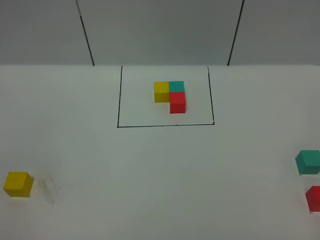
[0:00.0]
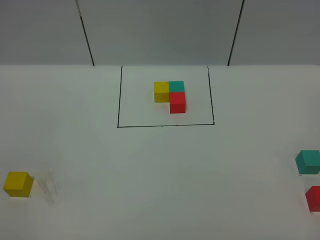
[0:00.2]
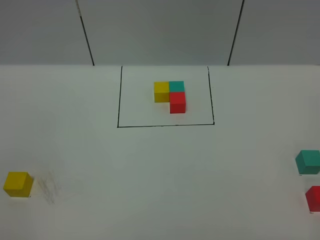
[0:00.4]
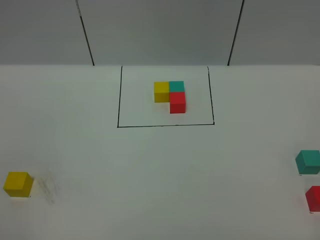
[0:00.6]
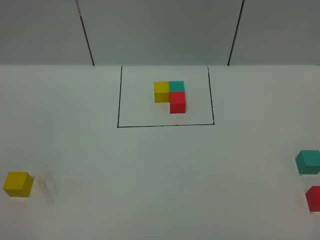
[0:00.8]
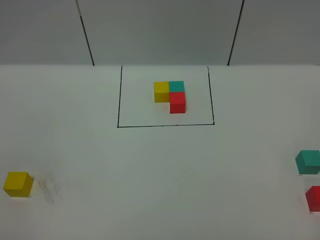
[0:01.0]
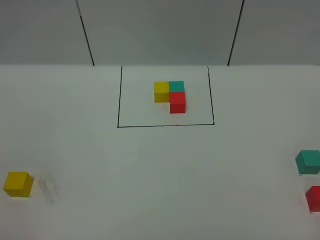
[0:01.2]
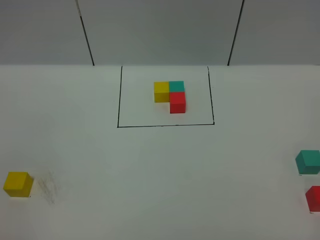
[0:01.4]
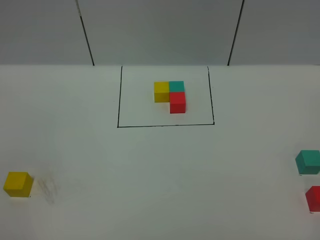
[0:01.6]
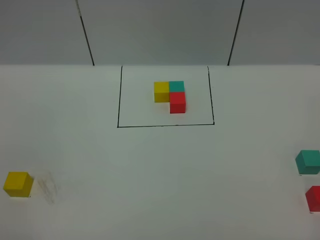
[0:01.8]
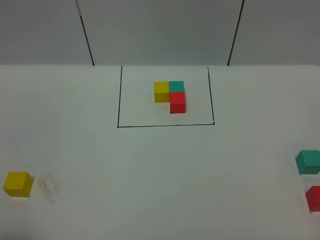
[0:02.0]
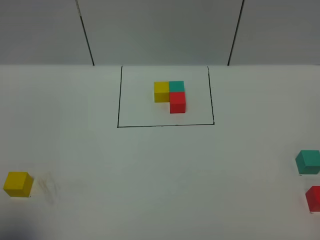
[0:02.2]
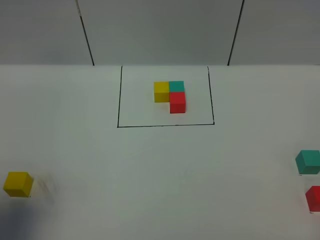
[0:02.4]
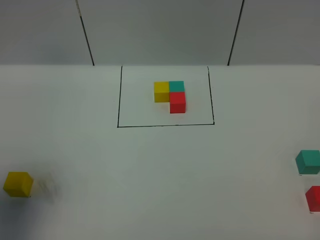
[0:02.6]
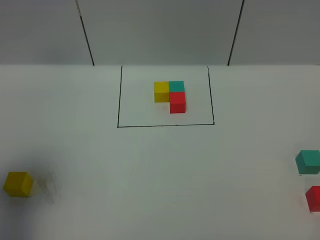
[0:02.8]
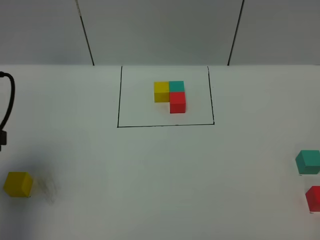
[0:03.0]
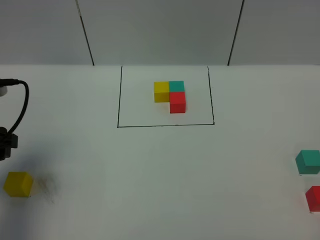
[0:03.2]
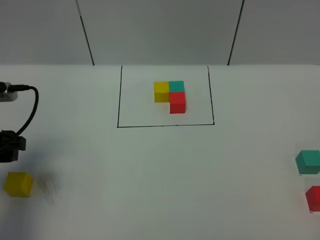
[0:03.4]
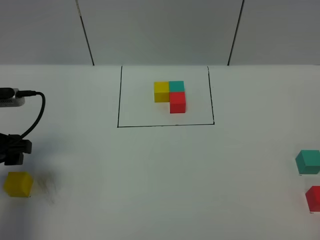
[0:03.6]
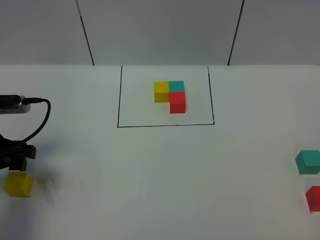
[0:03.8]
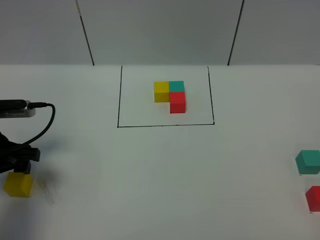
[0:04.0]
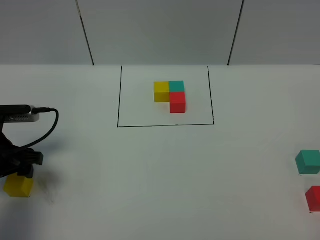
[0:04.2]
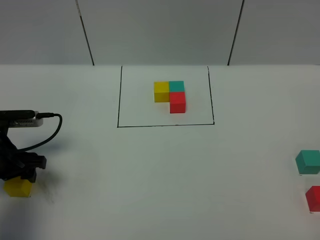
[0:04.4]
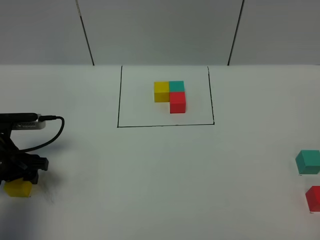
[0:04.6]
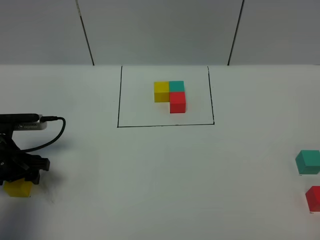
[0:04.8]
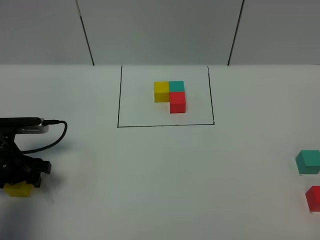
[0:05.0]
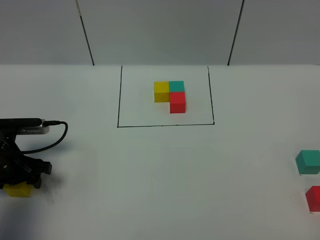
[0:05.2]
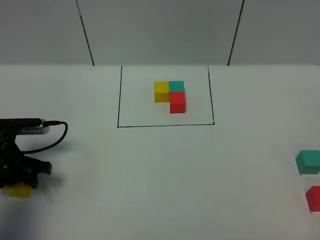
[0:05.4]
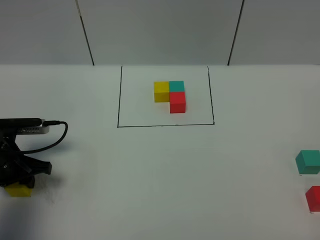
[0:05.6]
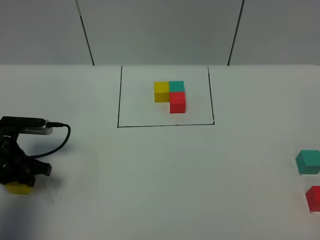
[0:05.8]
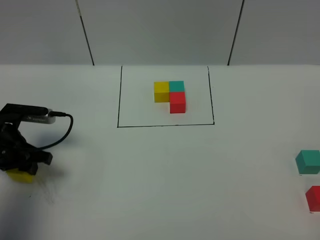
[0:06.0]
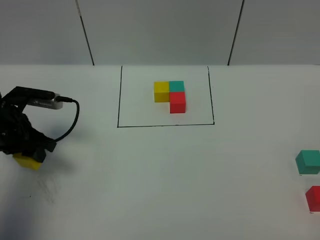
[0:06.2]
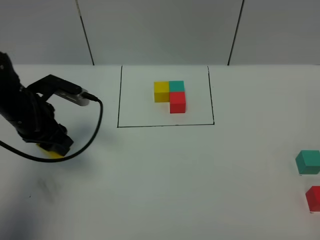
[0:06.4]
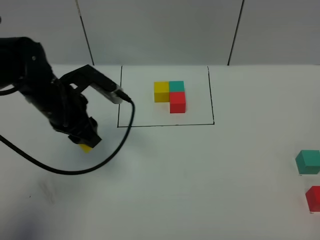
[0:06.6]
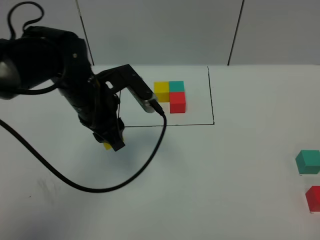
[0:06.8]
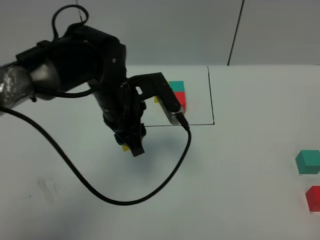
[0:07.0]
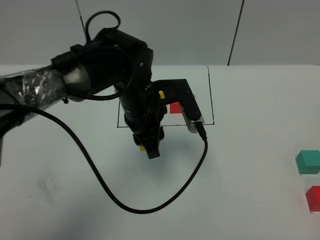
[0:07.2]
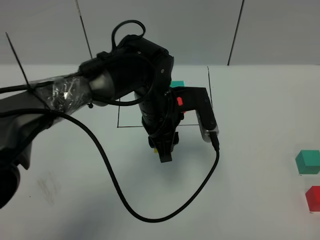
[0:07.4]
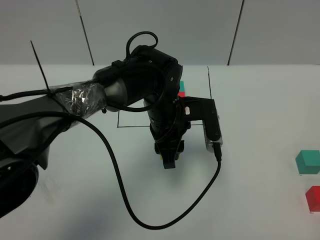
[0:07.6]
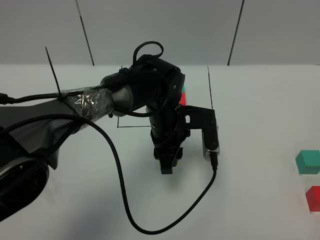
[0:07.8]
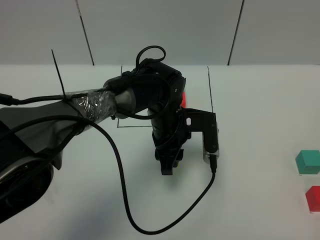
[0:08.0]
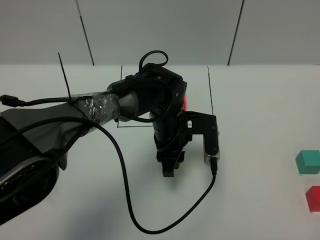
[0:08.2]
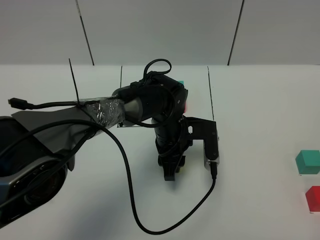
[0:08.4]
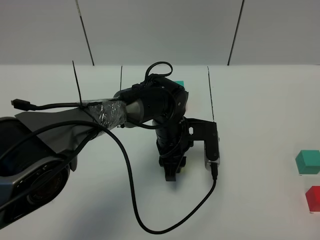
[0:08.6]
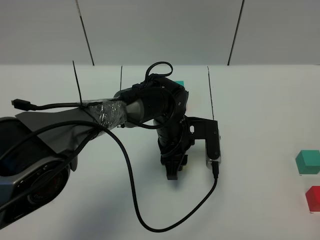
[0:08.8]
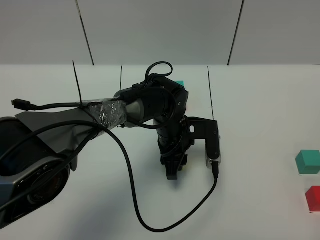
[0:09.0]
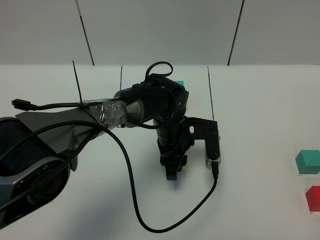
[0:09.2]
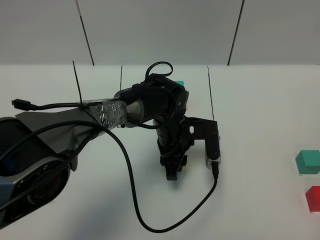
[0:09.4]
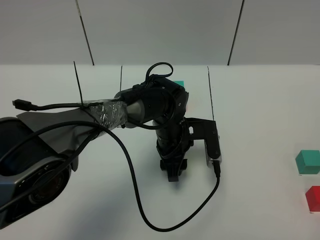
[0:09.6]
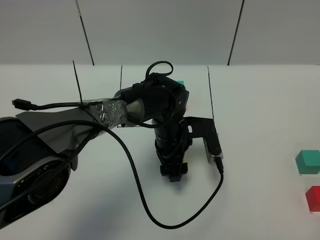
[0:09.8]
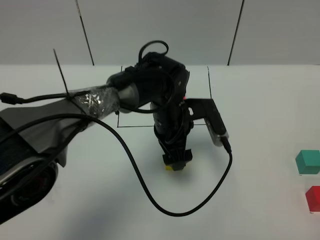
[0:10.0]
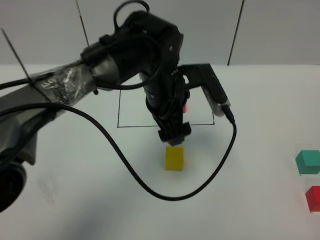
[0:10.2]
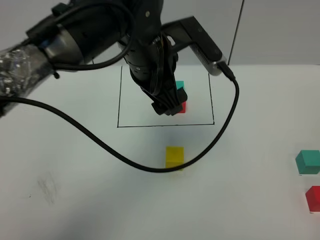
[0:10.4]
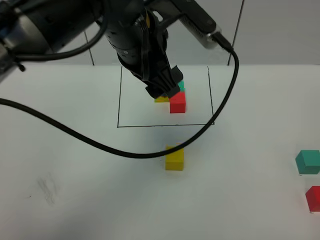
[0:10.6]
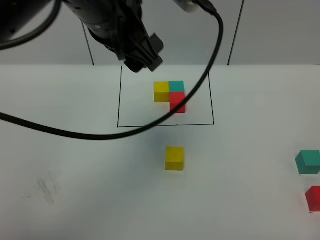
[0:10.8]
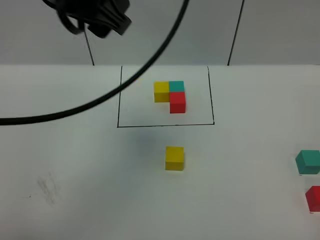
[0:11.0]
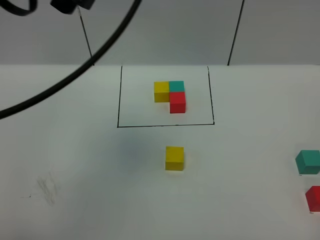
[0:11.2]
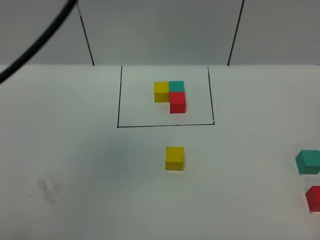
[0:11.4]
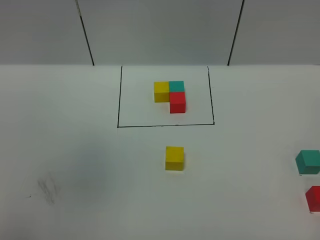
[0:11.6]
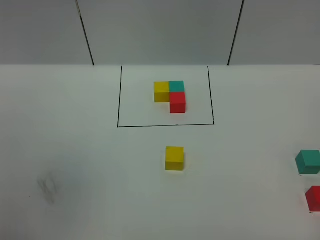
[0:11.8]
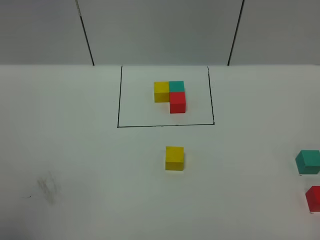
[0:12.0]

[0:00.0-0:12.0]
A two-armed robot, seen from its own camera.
Task of the whole recording: According to the building block template in front, assemble the scattered blocks together.
Step, 0:03.0 to 0:10.0: Put the yellow cube in the center of the table.
0:00.0 to 0:01.6: Both grippers stay put.
0:01.6 to 0:03.0: The left gripper is displaced forward by about 25 cm.
0:03.0 to 0:04.4: The left gripper shifts roughly 15 cm downward and forward.
0:04.4 to 0:06.0: The left gripper closes.
0:06.0 to 0:07.6: The left gripper shifts roughly 30 cm to the right.
0:07.6 to 0:09.0: The left gripper shifts some 5 cm downward.
0:09.0 to 0:10.4: The left gripper moves upward, some 20 cm, and opens up.
0:10.4 to 0:12.0: The left gripper is displaced to the left, backward and upward by some 40 cm.

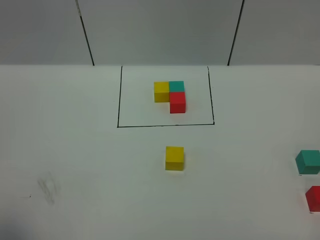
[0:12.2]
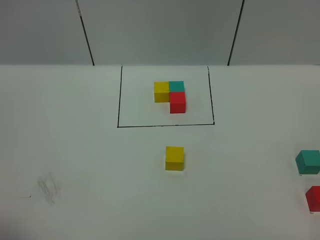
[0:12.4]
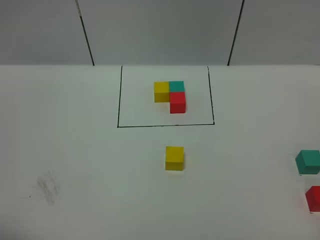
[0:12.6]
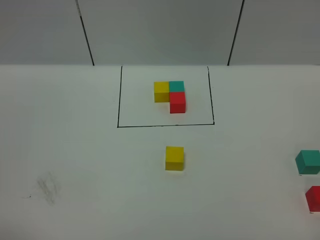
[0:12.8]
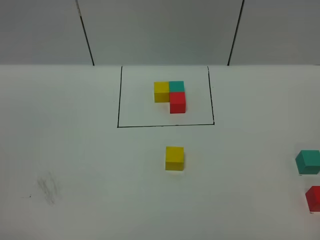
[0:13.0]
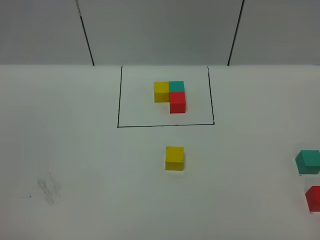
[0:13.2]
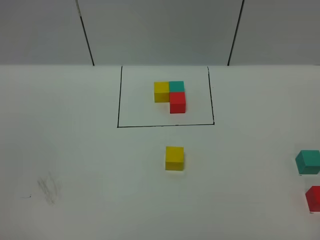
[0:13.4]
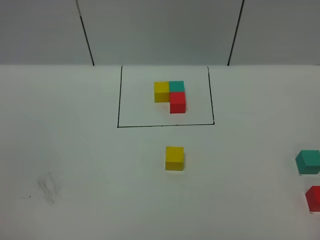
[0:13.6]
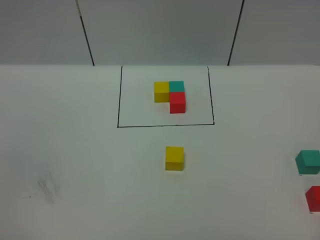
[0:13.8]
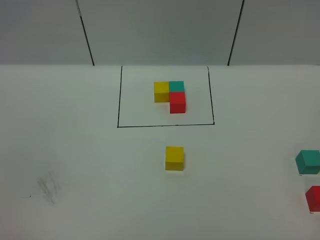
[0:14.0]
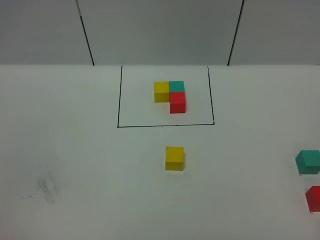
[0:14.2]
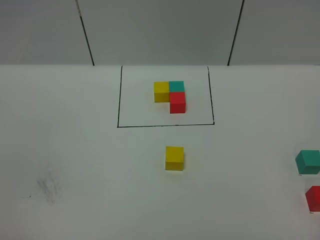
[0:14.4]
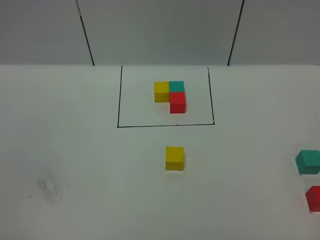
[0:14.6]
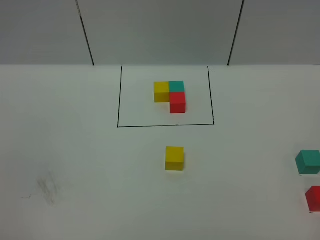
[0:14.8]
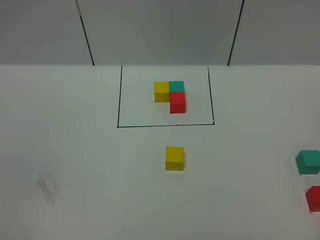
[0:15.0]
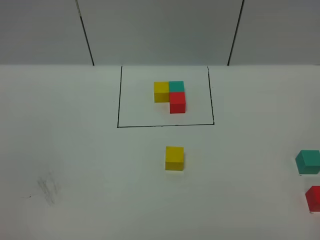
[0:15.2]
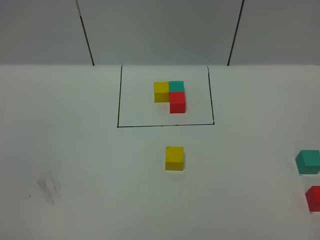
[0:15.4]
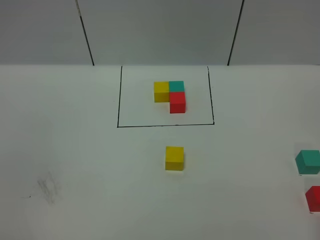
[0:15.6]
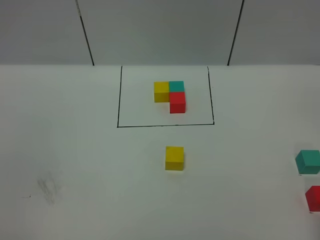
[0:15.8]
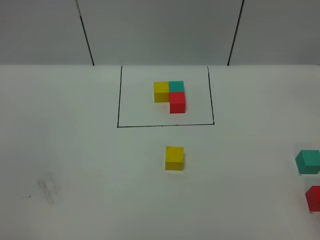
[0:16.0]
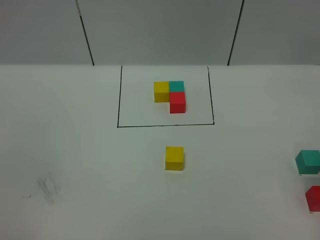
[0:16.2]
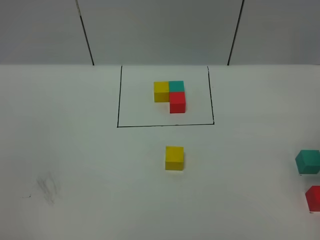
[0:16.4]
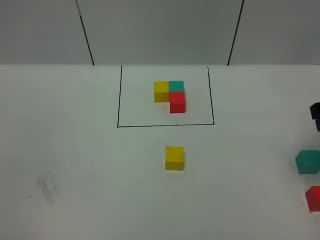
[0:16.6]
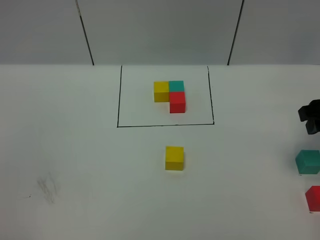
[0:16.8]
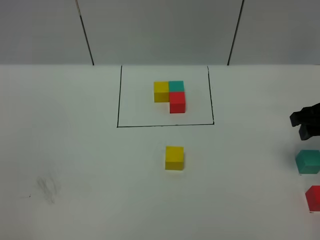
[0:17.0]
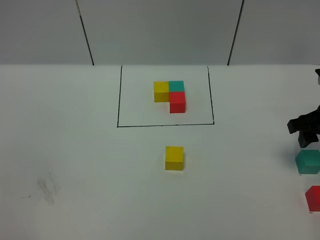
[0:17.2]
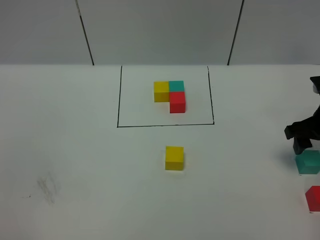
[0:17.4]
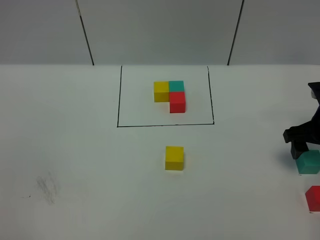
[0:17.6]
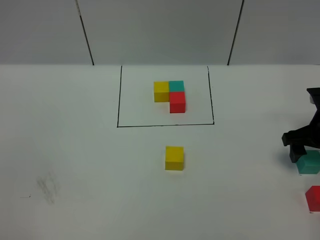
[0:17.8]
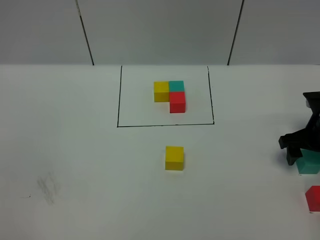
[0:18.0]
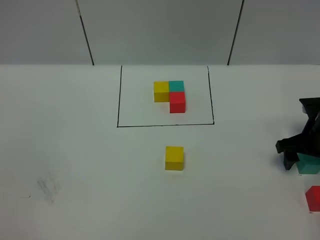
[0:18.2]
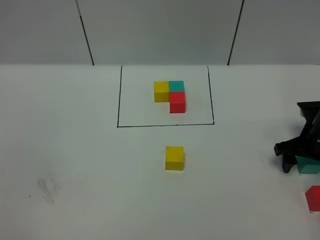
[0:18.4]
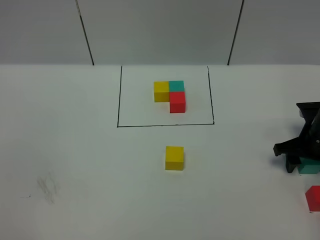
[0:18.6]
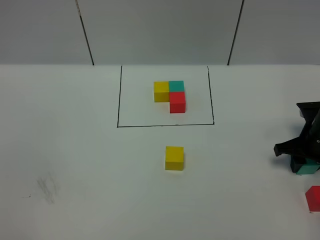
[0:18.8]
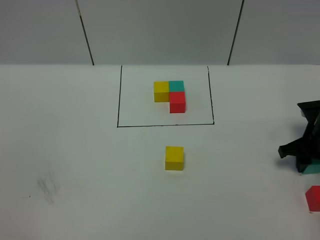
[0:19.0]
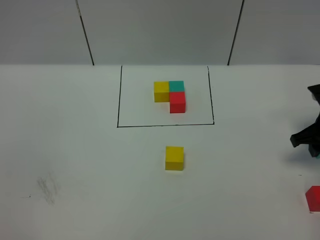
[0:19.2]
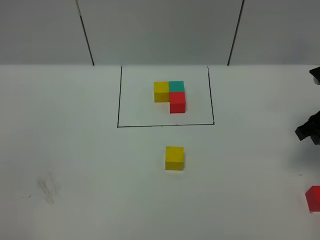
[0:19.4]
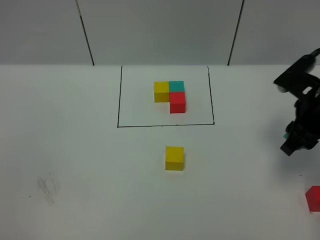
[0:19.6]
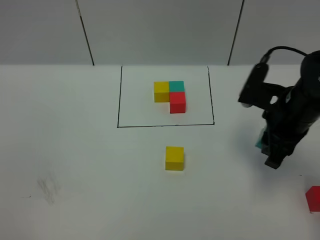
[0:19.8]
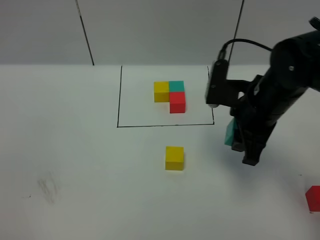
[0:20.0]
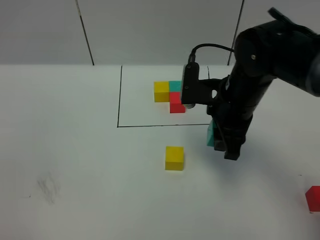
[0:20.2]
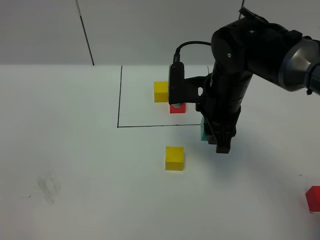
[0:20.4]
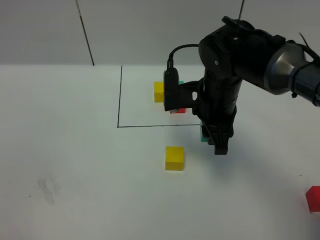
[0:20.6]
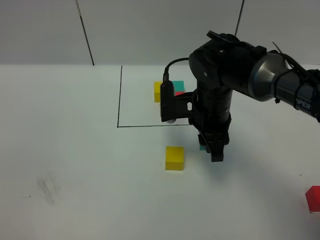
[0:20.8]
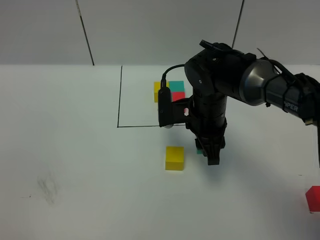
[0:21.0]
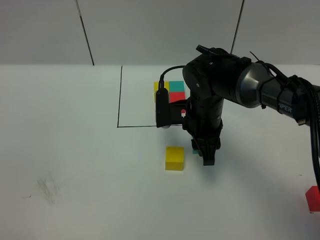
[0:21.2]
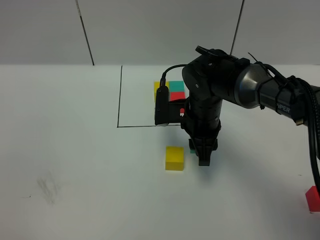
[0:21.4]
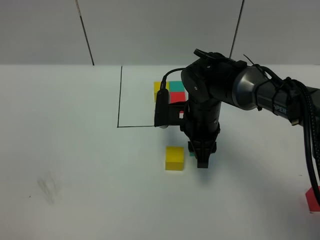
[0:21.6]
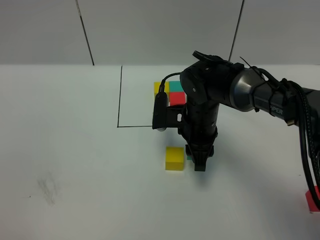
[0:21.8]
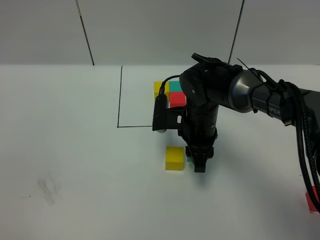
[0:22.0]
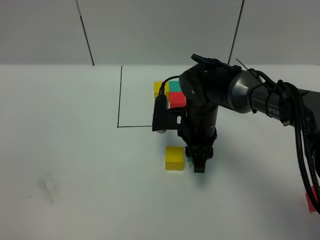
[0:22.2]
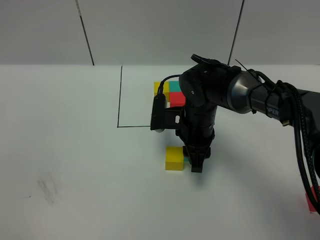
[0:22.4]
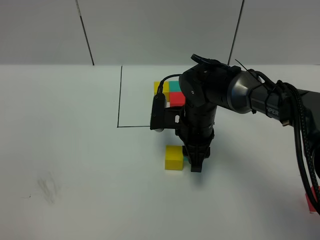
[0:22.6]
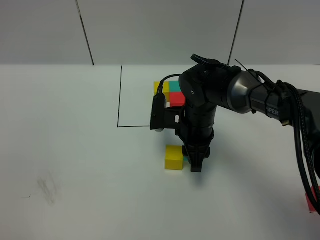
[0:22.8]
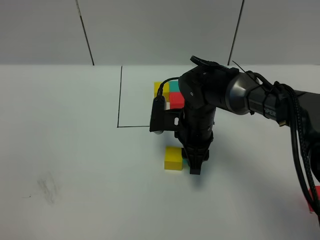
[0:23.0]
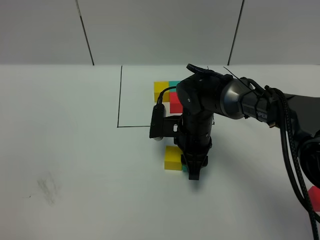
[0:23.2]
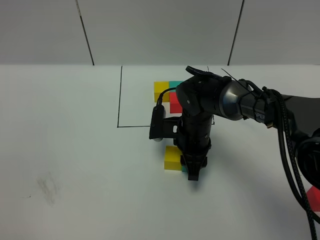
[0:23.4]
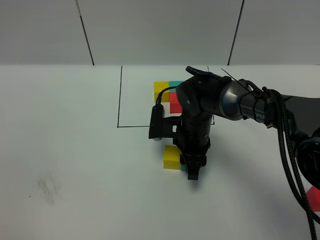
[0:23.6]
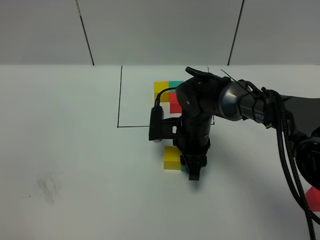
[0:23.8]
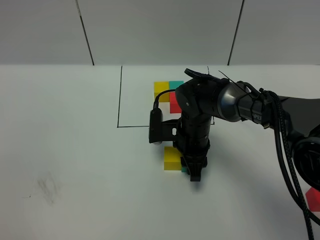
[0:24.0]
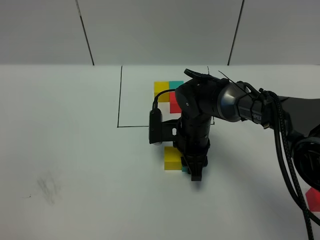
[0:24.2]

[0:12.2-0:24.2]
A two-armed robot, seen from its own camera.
Task of the whole recording: According to the building block template in front, assemble the scattered blocks together.
0:16.6 to 0:18.2: The right gripper heads downward and forward, covering roughly 20 cm.
0:18.2 to 0:19.8: The right gripper travels upward, to the left and backward by roughly 15 cm, and closes its fingers.
0:19.8 to 0:21.2: The right gripper is displaced to the left and downward by about 15 cm.
0:21.2 to 0:22.6: The grippers make only small movements.
0:22.6 to 0:24.2: The grippers make only small movements.
